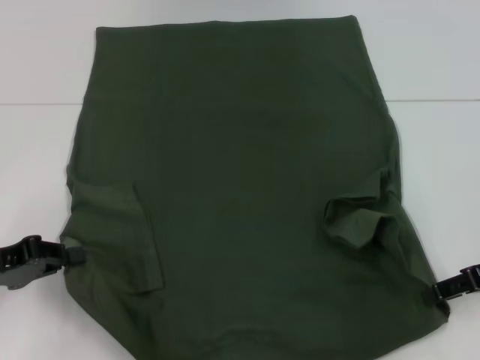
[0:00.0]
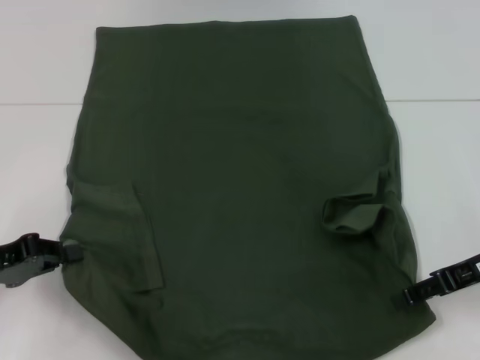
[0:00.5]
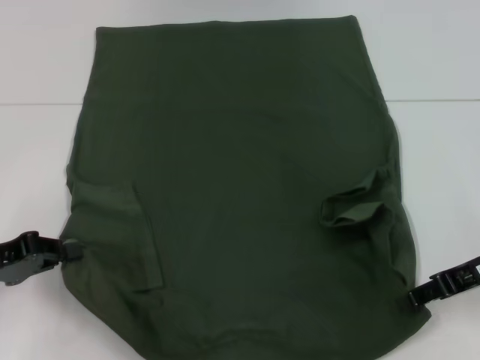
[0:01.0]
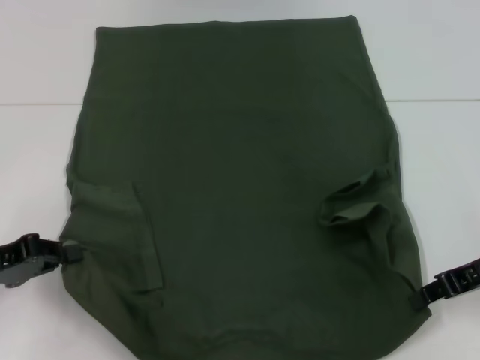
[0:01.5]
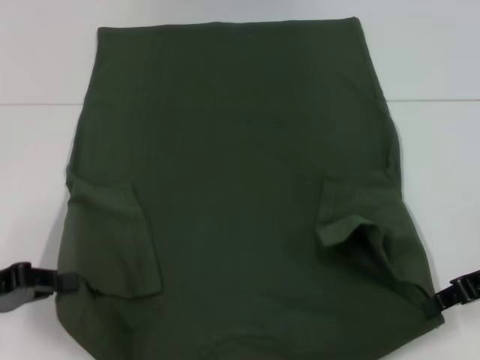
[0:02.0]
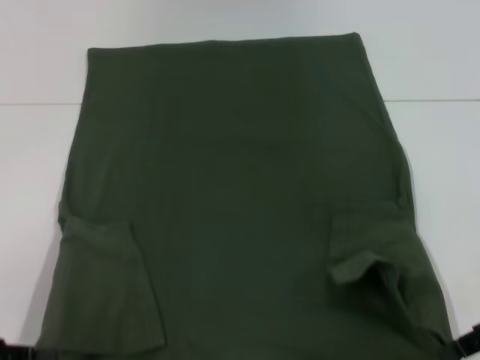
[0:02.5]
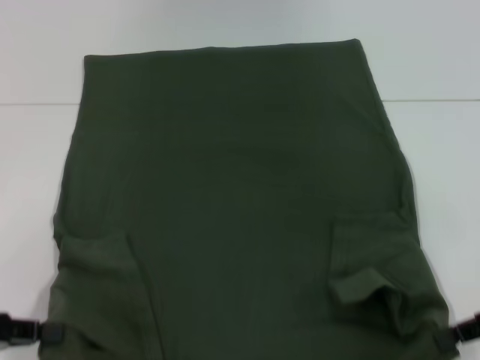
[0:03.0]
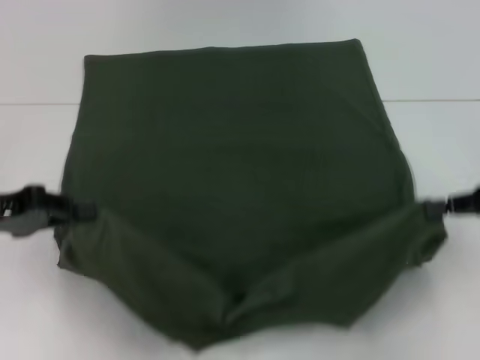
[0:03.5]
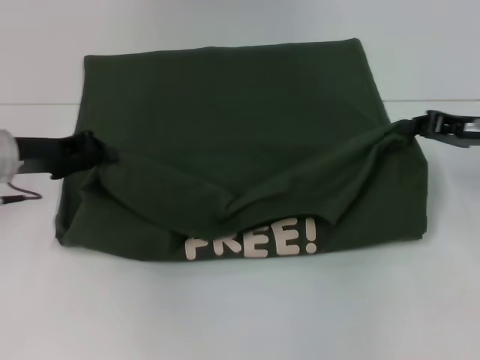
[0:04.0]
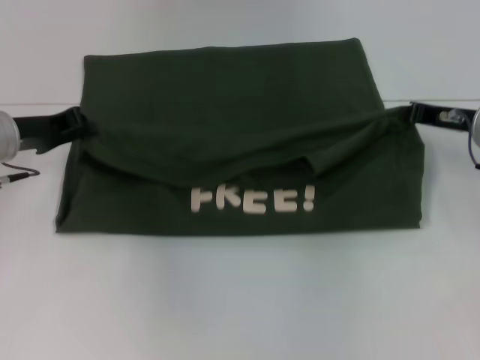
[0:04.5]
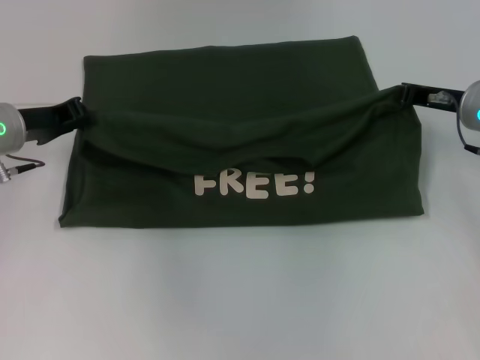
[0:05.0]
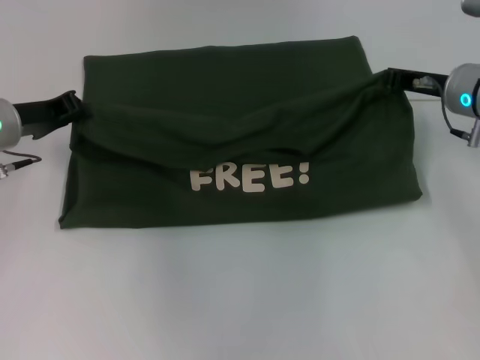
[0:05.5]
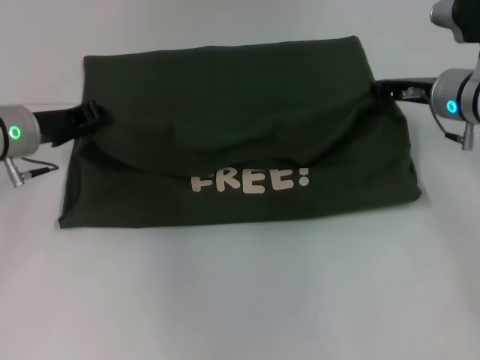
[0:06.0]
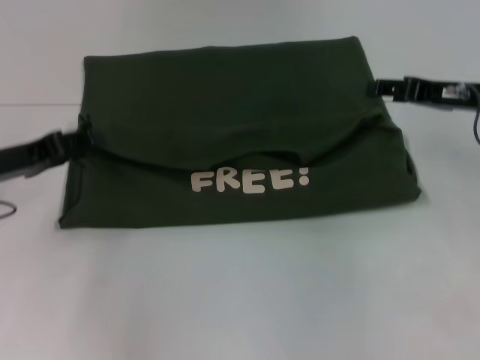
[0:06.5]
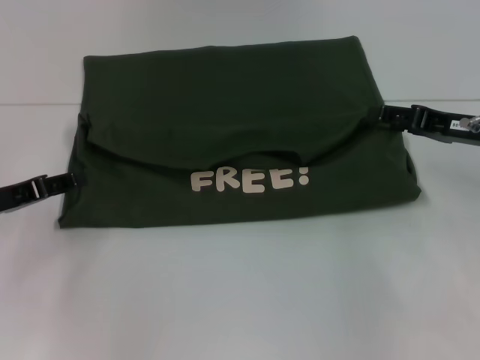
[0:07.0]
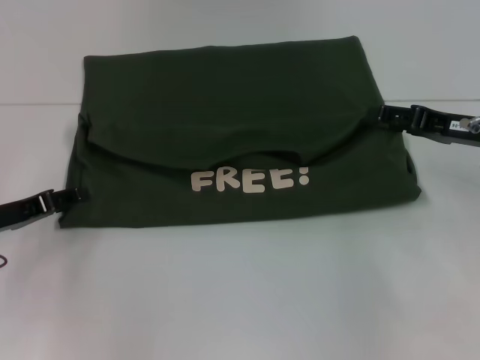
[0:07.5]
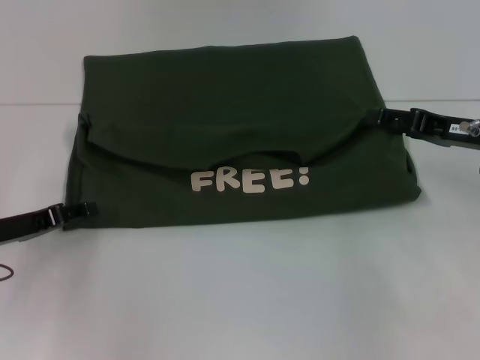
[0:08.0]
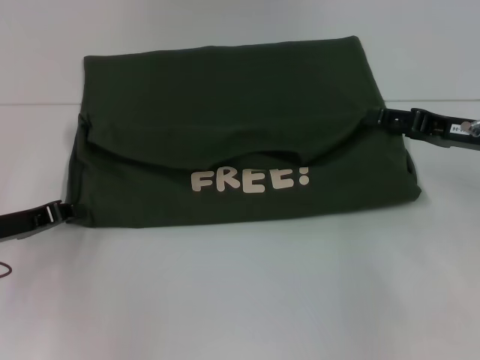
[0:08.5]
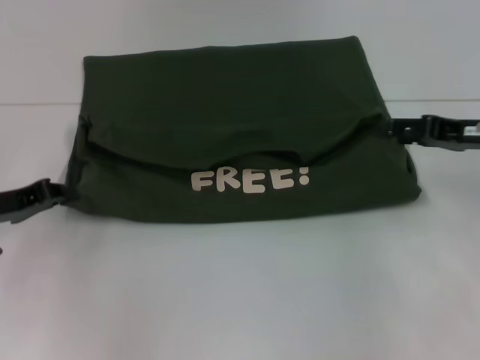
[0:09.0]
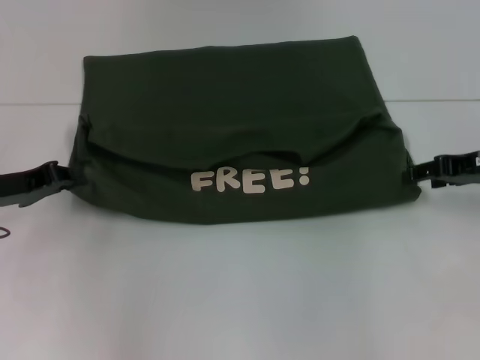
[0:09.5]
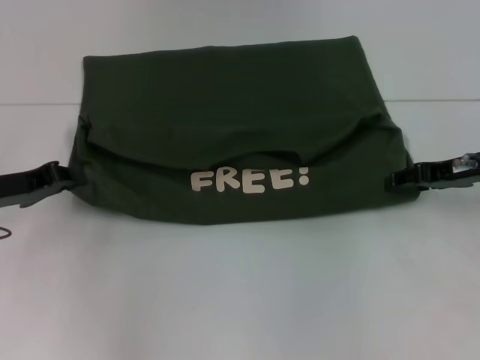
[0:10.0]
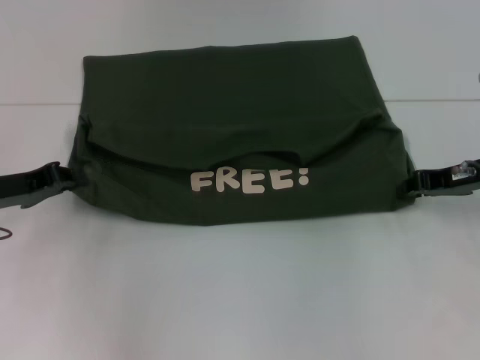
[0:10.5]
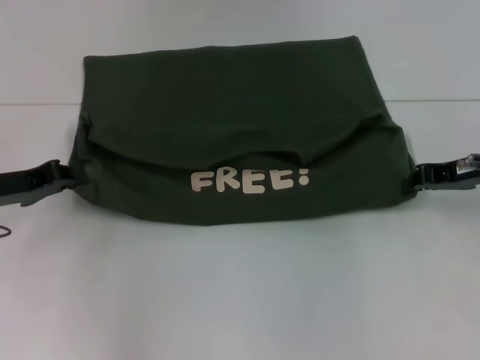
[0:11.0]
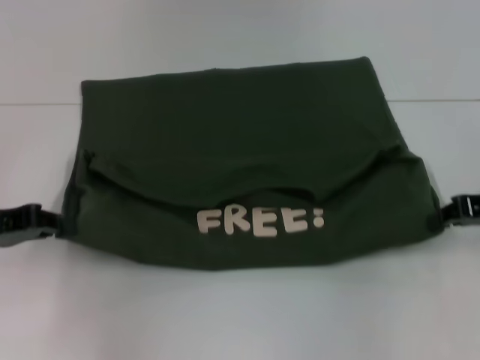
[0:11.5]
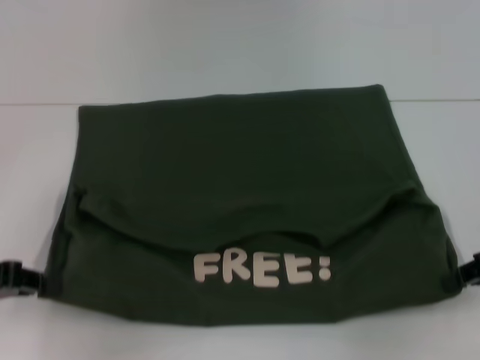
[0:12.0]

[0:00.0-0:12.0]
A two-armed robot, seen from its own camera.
Step, 0:01.0 to 0:06.5: Fold the clothes with your left hand.
Step, 0:01.0 to 0:06.5: Fold the clothes with your right hand.
0:00.0 to 0:02.0: The right gripper closes up.
0:02.0 to 0:04.0: The right gripper heads forward, covering some 10 cm; the left gripper goes approximately 15 cm forward and to the right.
0:04.0 to 0:06.0: The right gripper travels to the left and forward by roughly 10 cm.
0:06.0 to 0:08.0: The right gripper is displaced backward and to the right by some 10 cm, and opens its fingers. The left gripper moves backward, downward and to the left, about 10 cm, and opens.
0:08.0 to 0:10.0: The left gripper closes.
0:10.0 to 0:12.0: The two grippers go approximately 10 cm backward. The right gripper closes up.

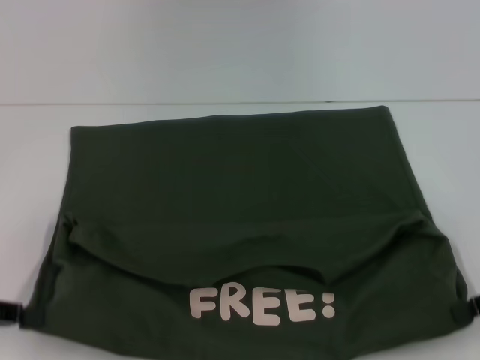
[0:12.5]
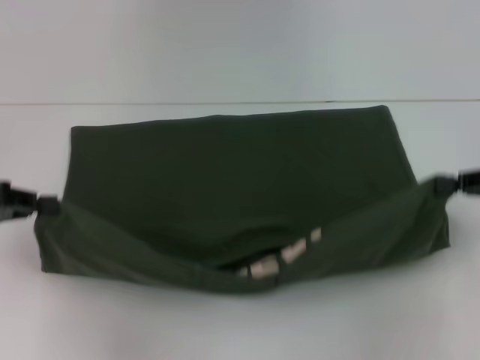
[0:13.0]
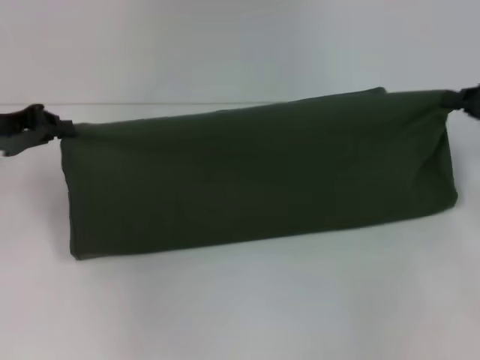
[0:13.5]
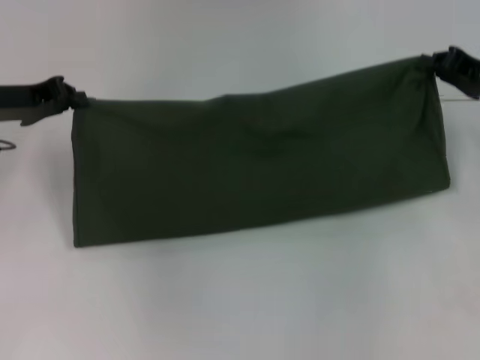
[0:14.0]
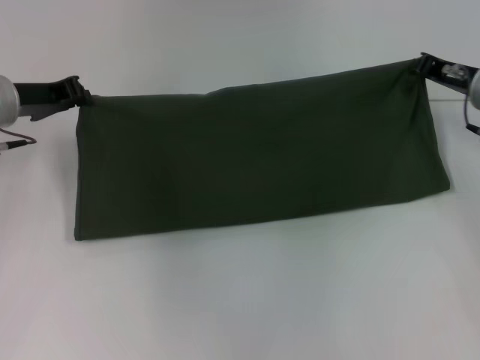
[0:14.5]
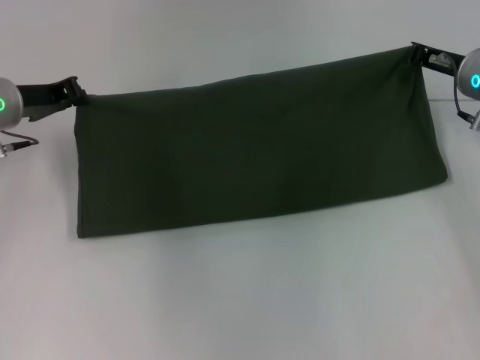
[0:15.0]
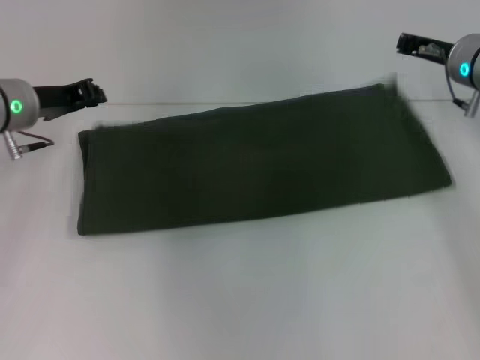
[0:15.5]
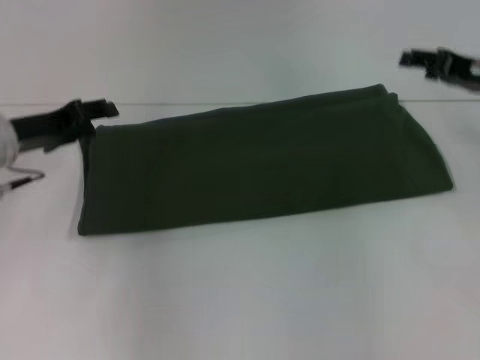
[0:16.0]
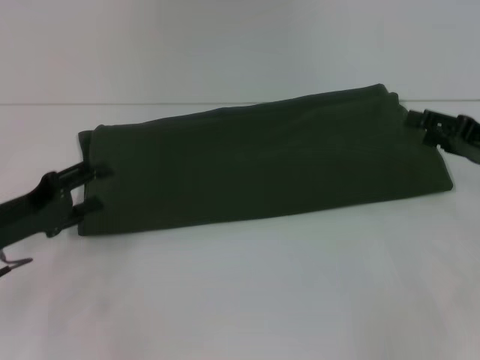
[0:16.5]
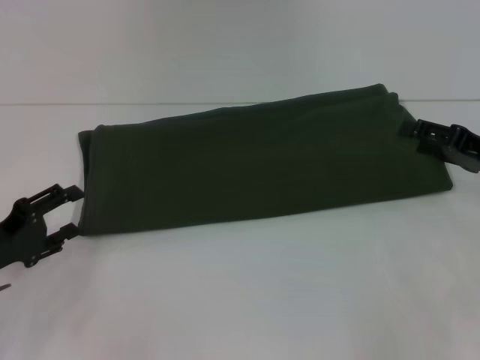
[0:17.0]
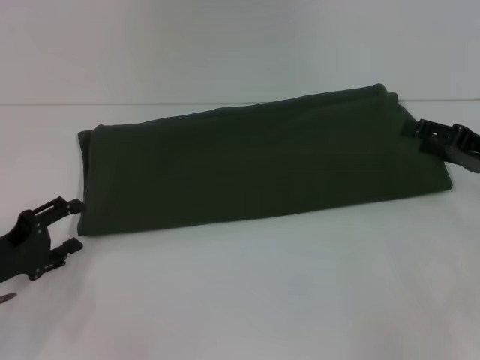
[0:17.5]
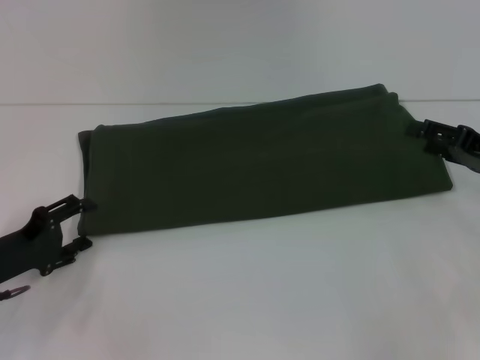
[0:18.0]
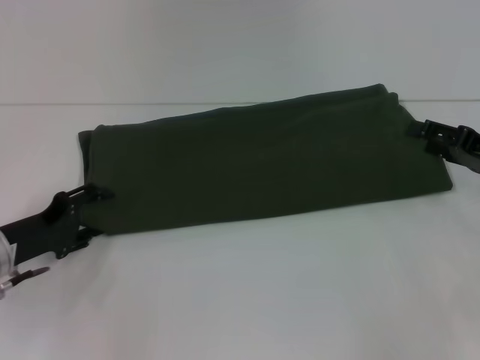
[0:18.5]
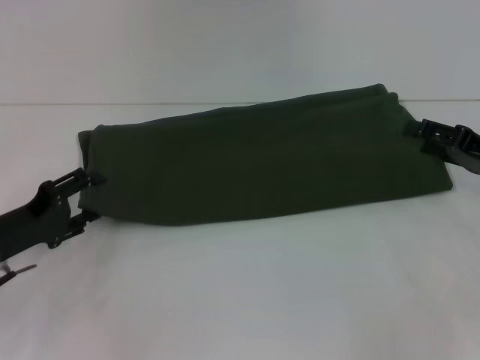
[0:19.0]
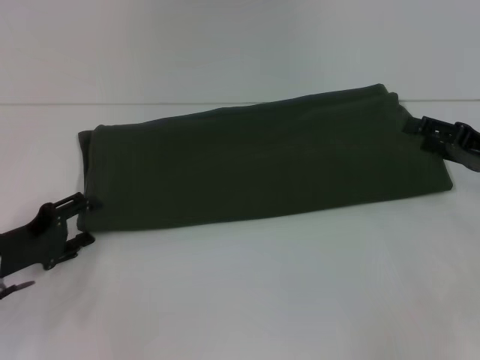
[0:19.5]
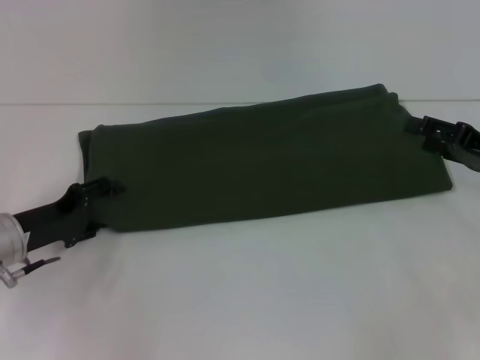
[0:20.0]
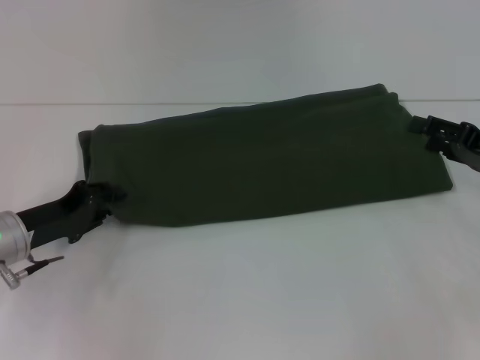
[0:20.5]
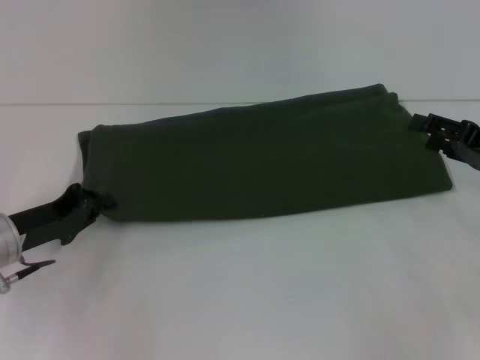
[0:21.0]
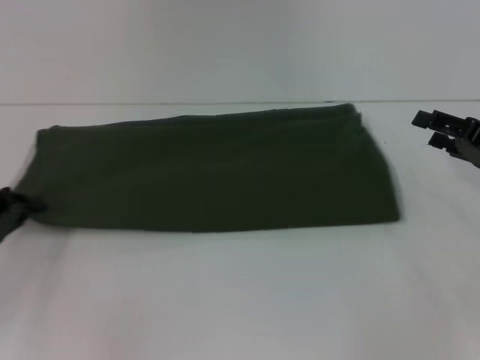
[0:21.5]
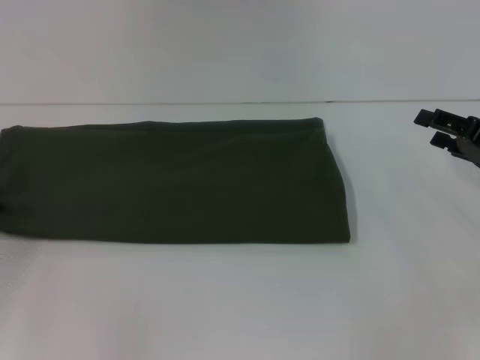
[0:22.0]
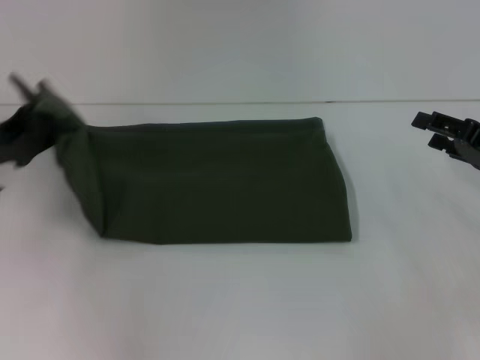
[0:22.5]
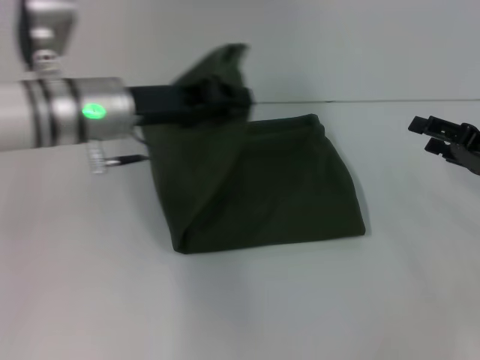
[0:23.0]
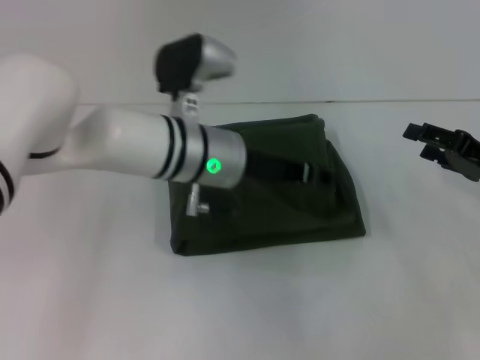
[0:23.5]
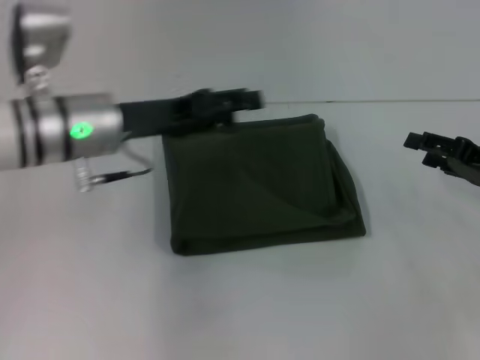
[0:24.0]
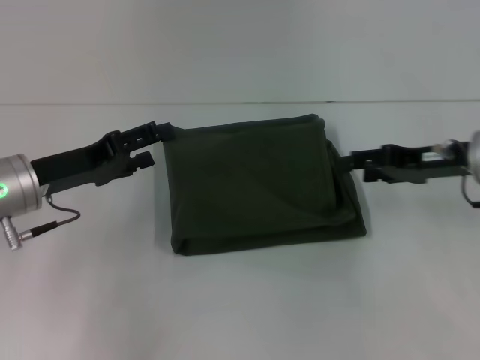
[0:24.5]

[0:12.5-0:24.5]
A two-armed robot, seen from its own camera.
Step, 0:12.5 to 0:16.5: Fold the clothes with your right hand.
Step, 0:12.5 to 0:24.0: Fold the clothes with your left hand.
0:12.5 to 0:14.5: The left gripper moves forward and to the right, some 20 cm. Meanwhile the right gripper moves forward and to the left, approximately 20 cm.
0:14.5 to 0:16.5: The right gripper goes about 10 cm backward and to the right, and opens up. Meanwhile the left gripper is displaced backward and downward by approximately 15 cm, and opens up.
0:16.5 to 0:20.5: The grippers move only a little.
0:20.5 to 0:22.5: The left gripper travels upward by about 10 cm, and closes its fingers.
0:22.5 to 0:24.5: The left gripper reaches roughly 25 cm to the right, then returns, and opens its fingers, while the right gripper is displaced to the left by some 5 cm.

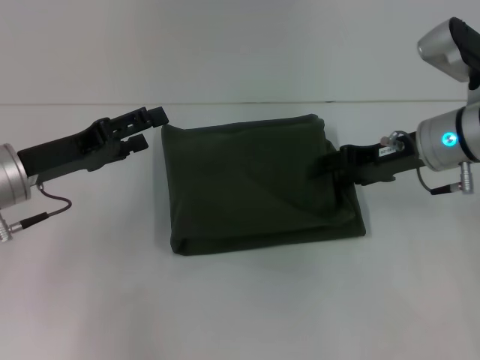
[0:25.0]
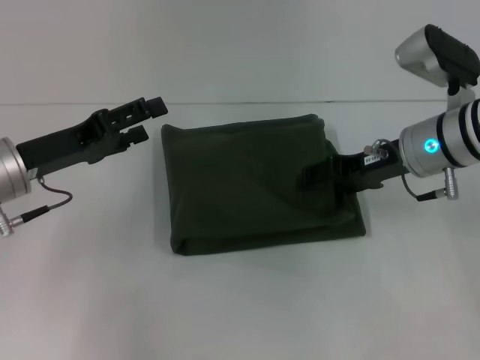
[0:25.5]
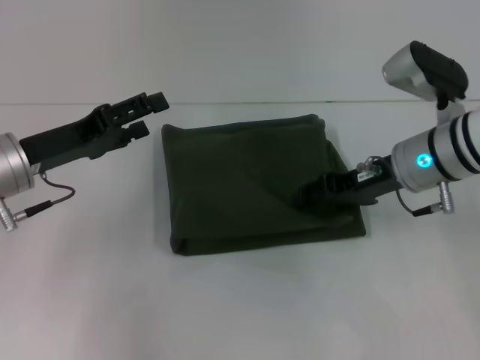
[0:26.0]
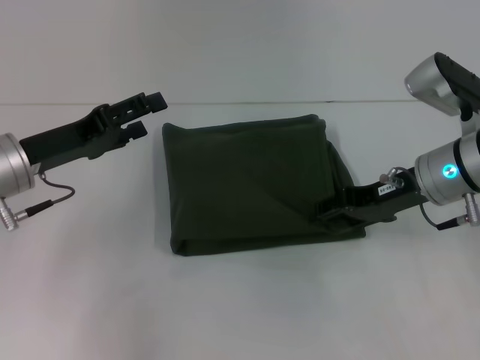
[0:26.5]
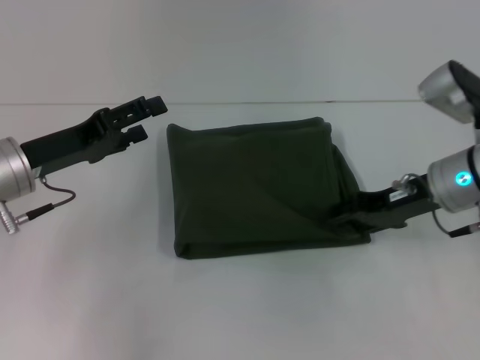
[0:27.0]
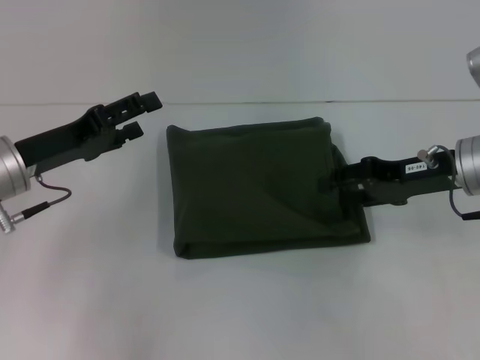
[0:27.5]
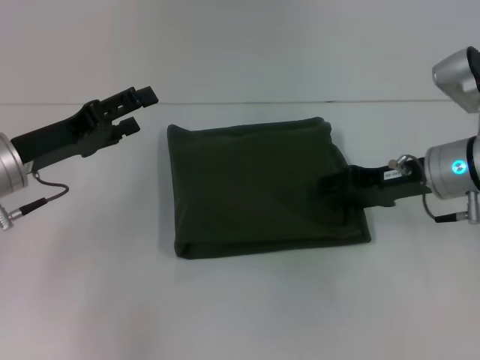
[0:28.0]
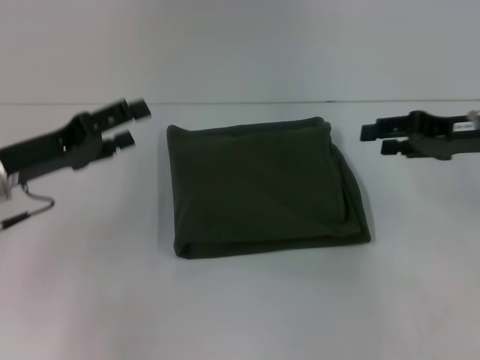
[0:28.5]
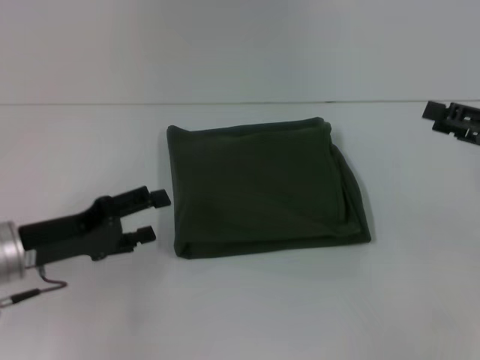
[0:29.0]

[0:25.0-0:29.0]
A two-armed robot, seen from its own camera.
0:25.0 to 0:27.0: The grippers move only a little.
0:27.0 to 0:29.0: The left gripper heads backward, covering roughly 5 cm. The right gripper is displaced to the right and backward by roughly 15 cm.
